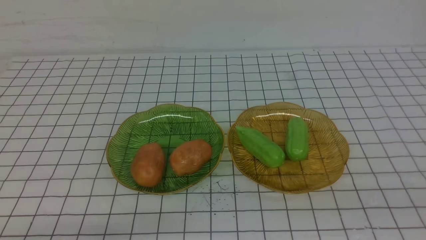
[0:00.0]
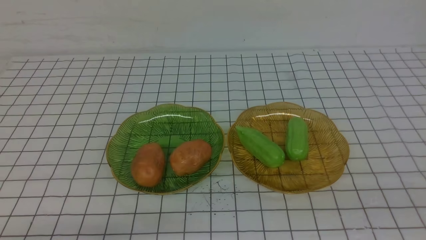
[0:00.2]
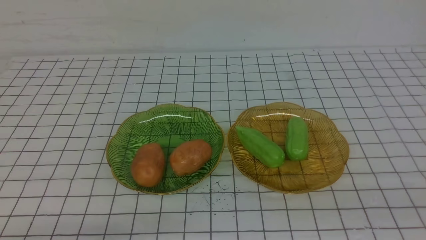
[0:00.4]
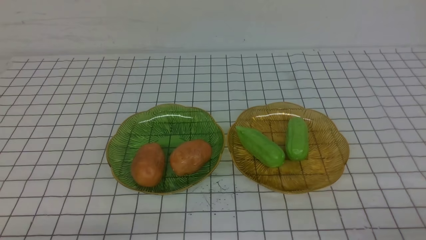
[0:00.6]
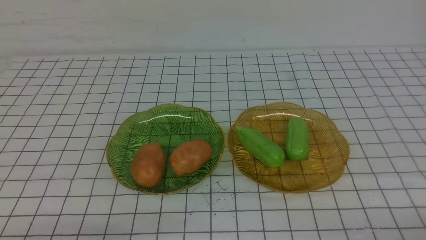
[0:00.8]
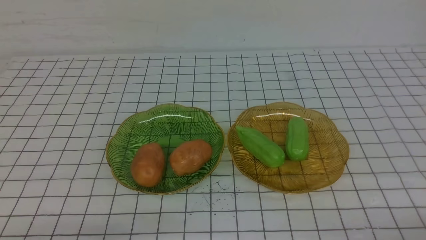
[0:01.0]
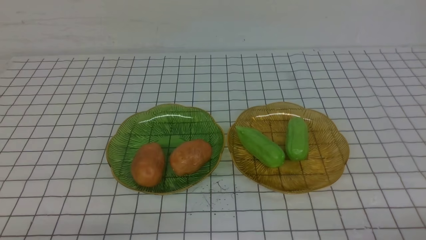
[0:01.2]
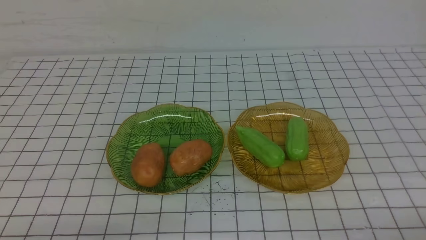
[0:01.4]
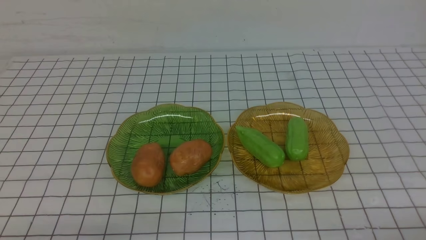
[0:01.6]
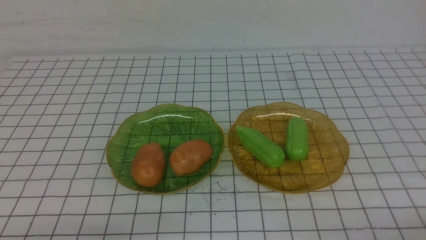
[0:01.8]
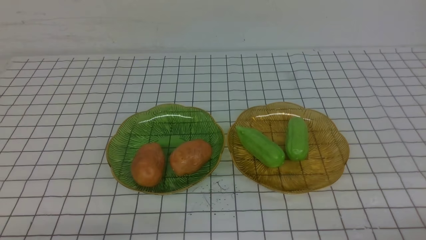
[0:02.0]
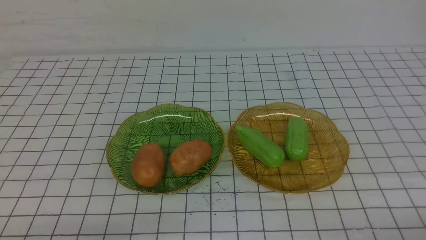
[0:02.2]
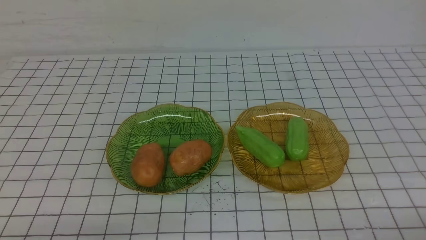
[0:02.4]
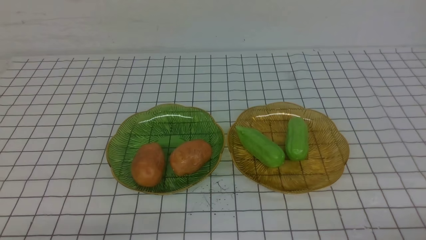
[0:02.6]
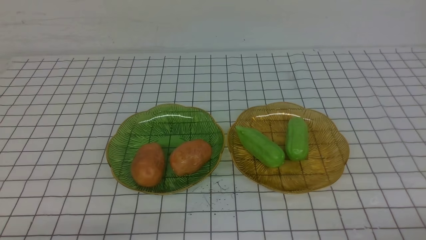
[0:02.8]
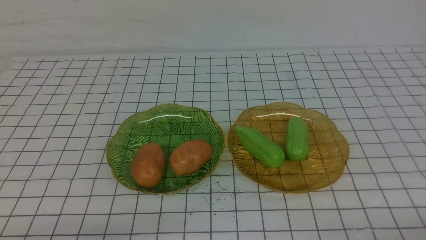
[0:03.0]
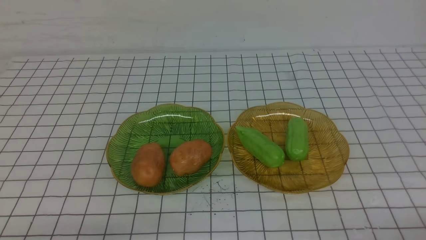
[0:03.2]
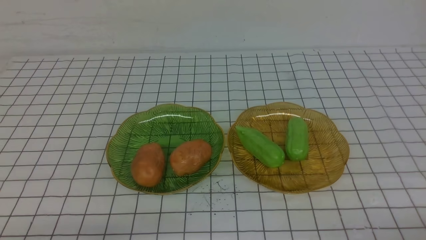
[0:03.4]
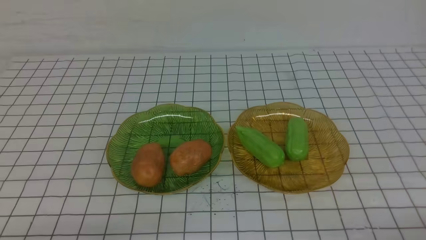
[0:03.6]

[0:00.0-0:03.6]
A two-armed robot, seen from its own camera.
0:01.8 to 0:03.6: Neither gripper changes place.
